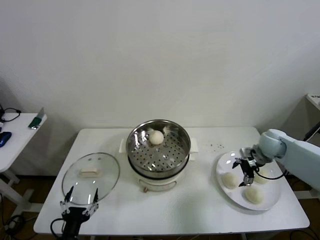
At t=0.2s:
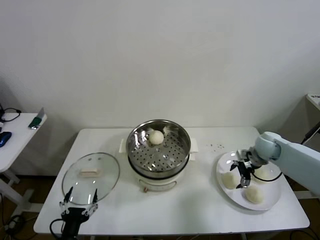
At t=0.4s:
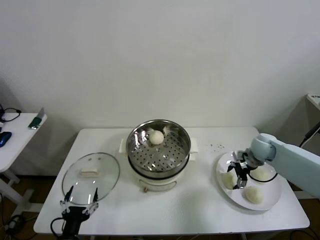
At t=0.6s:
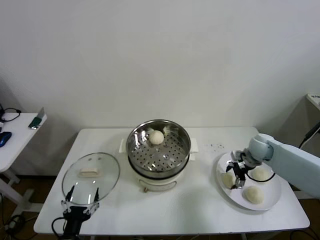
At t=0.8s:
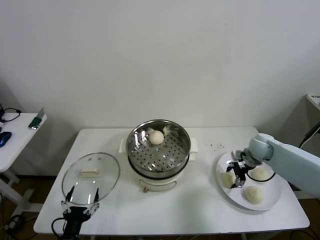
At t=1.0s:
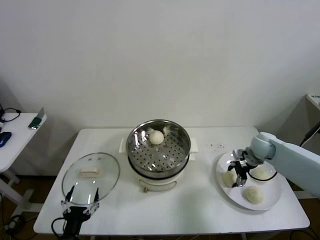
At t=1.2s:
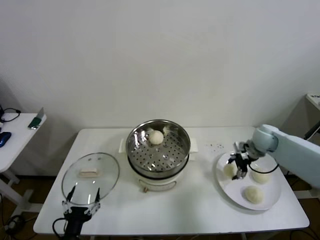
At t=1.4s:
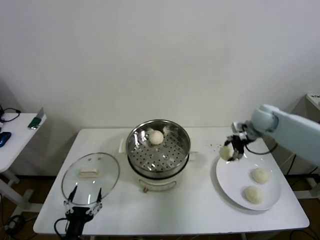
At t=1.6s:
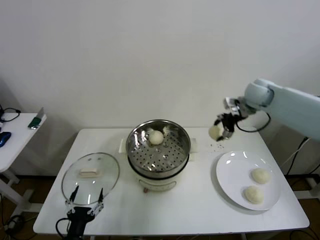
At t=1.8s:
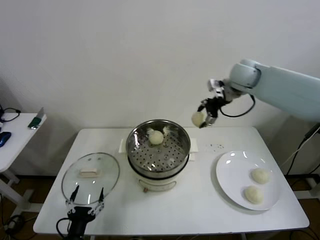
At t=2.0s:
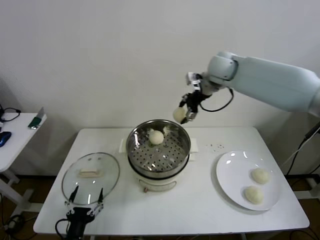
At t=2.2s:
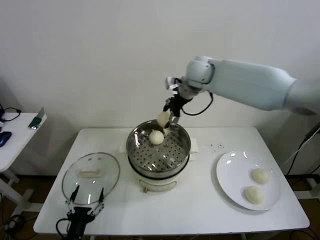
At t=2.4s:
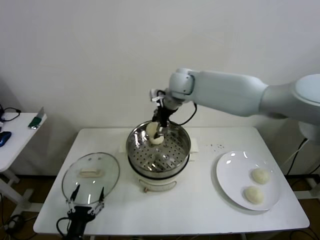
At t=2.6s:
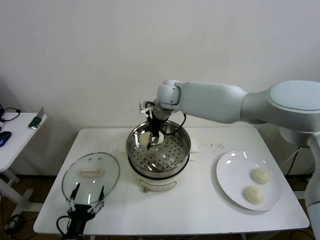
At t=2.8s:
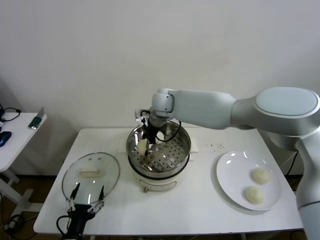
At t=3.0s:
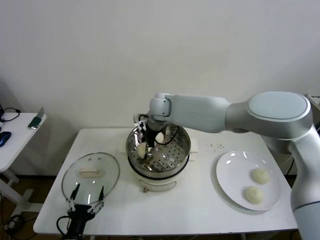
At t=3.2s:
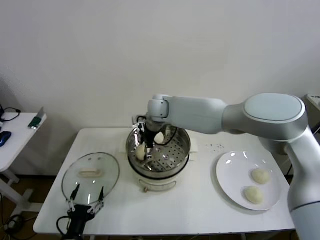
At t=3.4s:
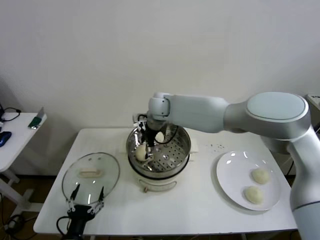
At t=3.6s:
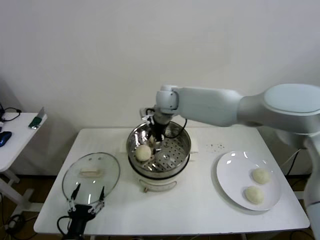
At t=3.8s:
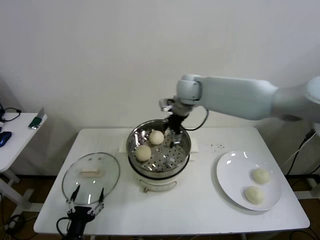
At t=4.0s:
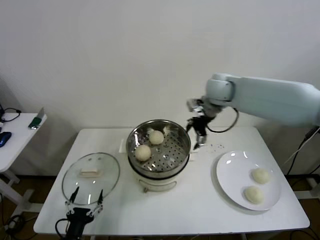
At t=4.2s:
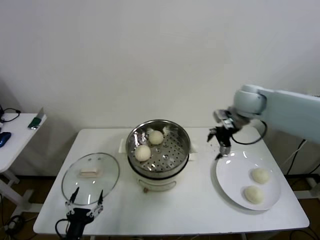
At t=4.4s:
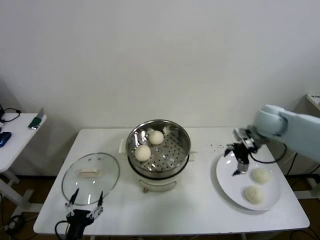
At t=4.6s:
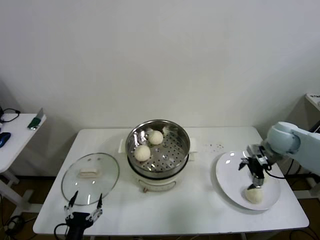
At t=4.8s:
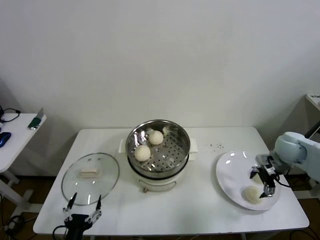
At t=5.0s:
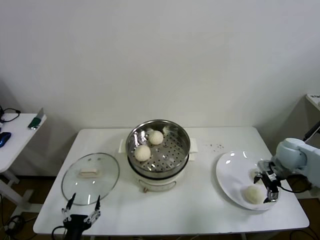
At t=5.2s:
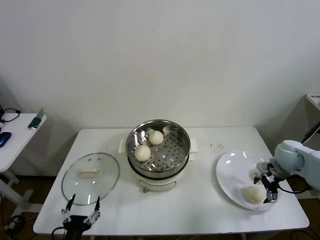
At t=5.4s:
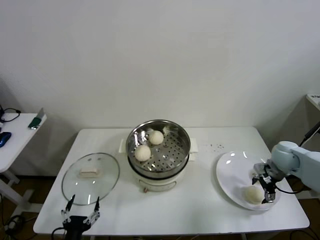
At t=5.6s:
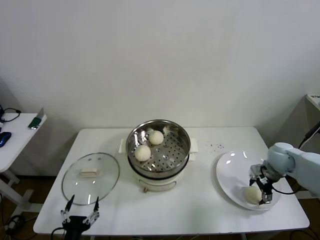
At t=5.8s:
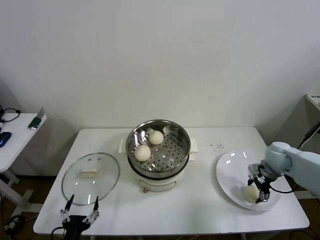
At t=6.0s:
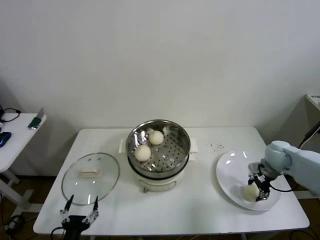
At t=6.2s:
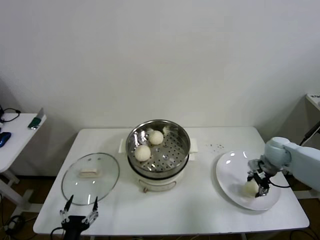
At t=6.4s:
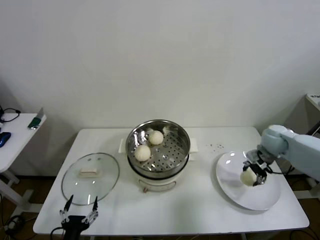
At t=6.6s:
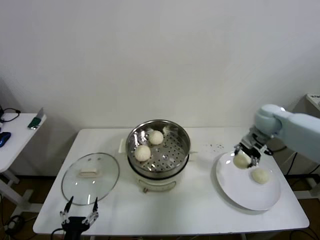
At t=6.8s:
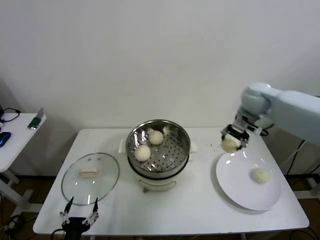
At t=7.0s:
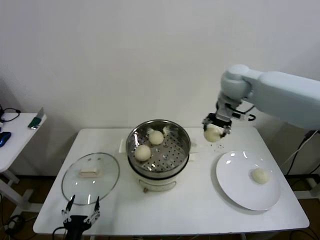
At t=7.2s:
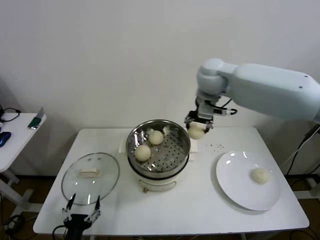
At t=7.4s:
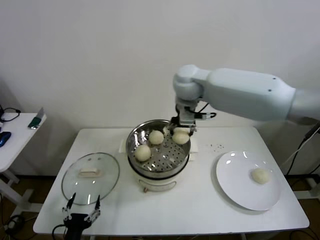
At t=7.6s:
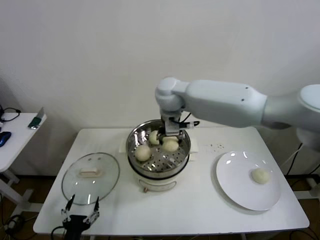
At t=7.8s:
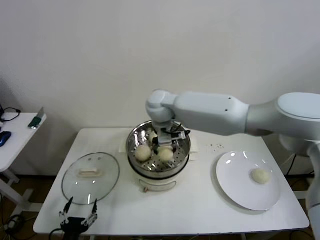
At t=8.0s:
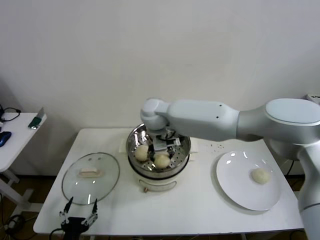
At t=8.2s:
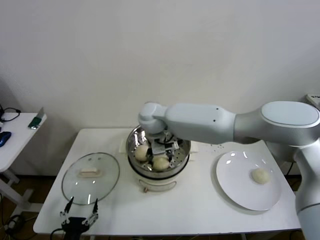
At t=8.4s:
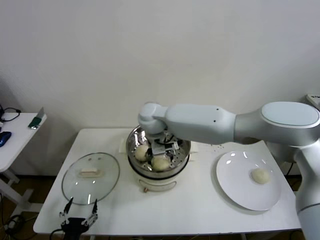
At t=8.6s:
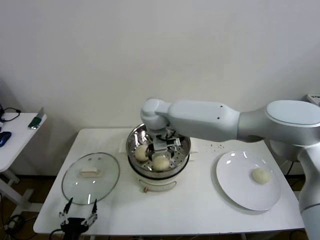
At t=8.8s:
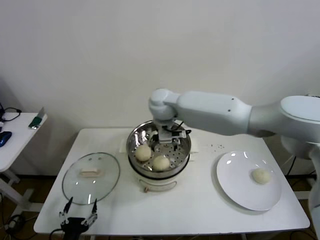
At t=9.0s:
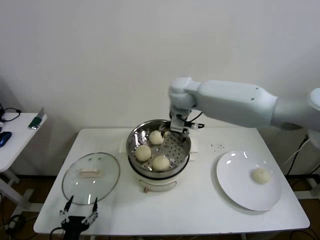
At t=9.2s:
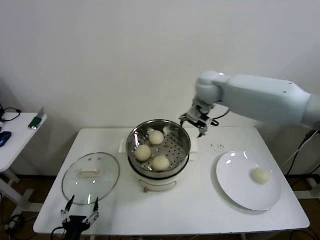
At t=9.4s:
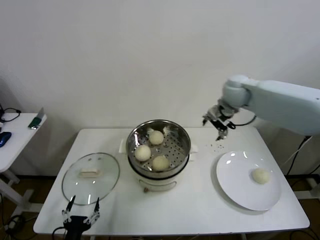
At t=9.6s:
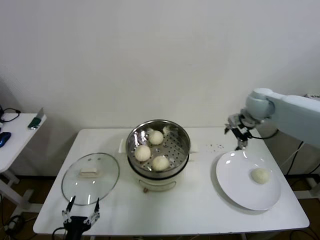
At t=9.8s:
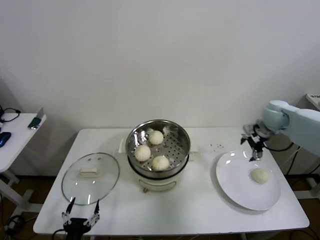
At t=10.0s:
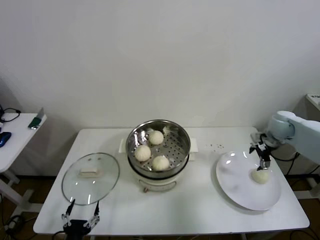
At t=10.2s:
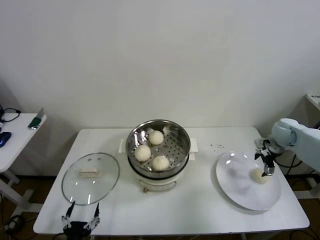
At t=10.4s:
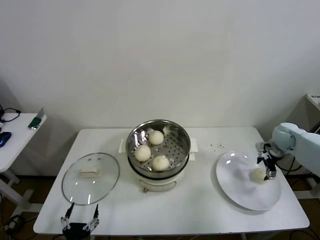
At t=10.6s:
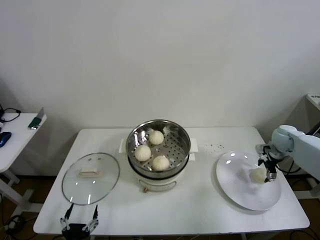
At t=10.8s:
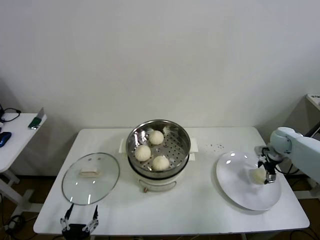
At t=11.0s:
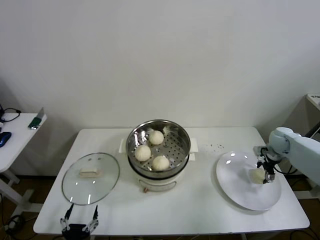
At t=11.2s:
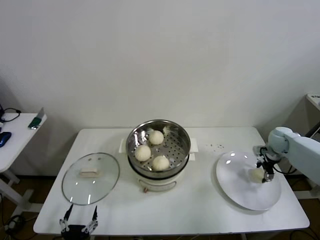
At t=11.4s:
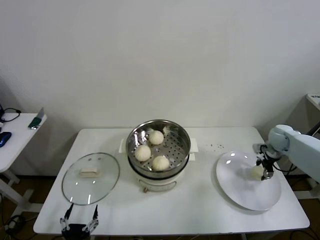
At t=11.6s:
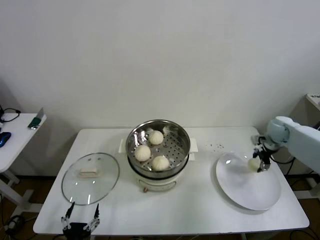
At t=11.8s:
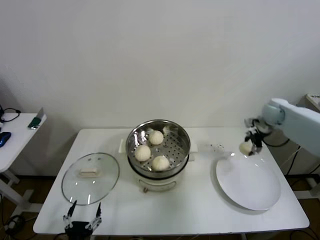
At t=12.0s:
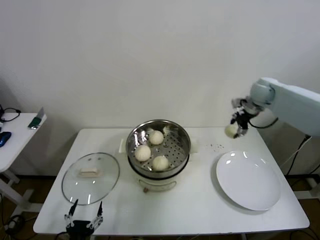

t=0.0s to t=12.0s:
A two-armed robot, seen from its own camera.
Step, t=1.0s to t=3.4s: Place the baozi on the steamer with right gripper.
Step, t=3.8s to t=6.0s: Grasp the baozi in the plate with right gripper.
Step, t=6.2s to t=8.6s: Place the baozi on the steamer with right gripper.
Step, t=9.0s to t=11.4s: Grasp the baozi in the plate with right gripper.
t=0.0s to t=1.6s: The right gripper travels upward, forward and to the left by roughly 25 cm, and closes.
t=1.6s to t=3.0s: The right gripper heads to the left, covering some 30 cm.
t=3.0s to t=4.4s: The right gripper travels to the right by some 35 cm, and opens.
t=4.4s to t=6.0s: The right gripper heads downward and to the right, covering roughly 15 cm, and closes.
t=6.0s to t=7.6s: The right gripper travels to the left and upward by some 50 cm.
t=7.6s to t=9.0s: The right gripper shifts approximately 5 cm to the right, and opens its fingers.
t=9.0s to t=10.4s: The right gripper goes roughly 40 cm to the right and downward.
t=10.4s to t=12.0s: The right gripper heads upward, to the left and forward, covering about 20 cm, and closes up.

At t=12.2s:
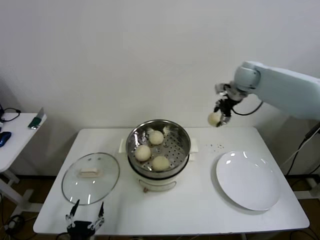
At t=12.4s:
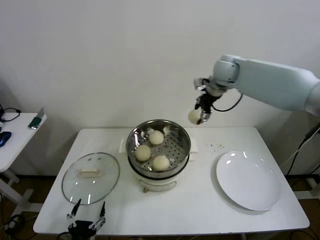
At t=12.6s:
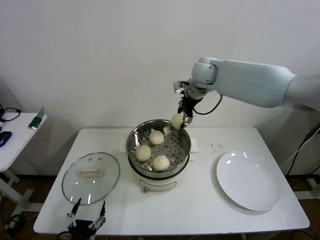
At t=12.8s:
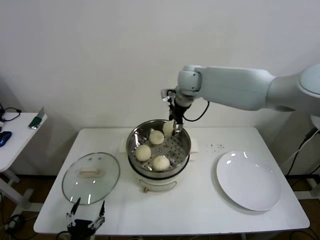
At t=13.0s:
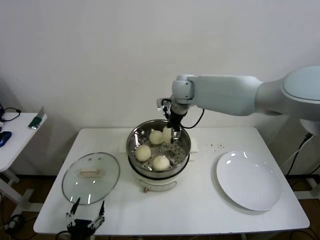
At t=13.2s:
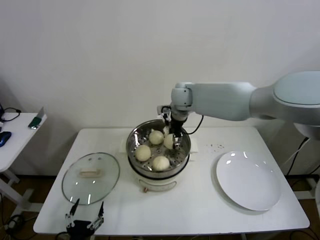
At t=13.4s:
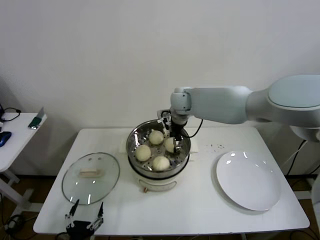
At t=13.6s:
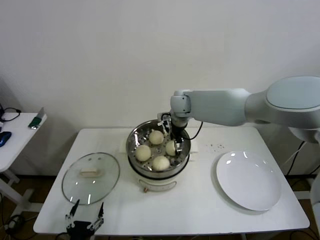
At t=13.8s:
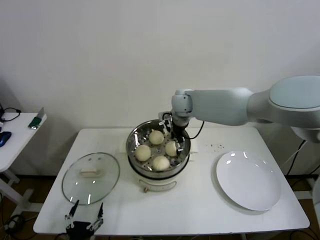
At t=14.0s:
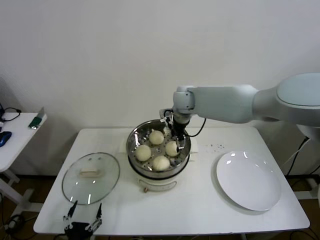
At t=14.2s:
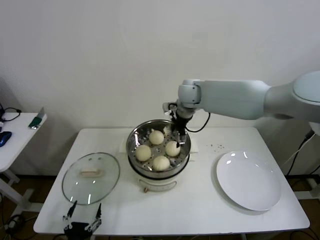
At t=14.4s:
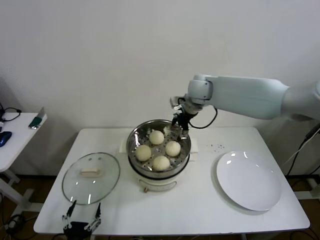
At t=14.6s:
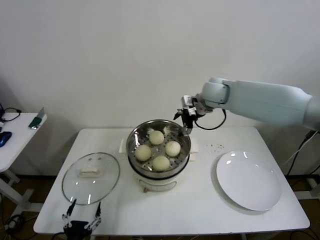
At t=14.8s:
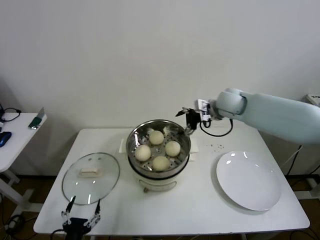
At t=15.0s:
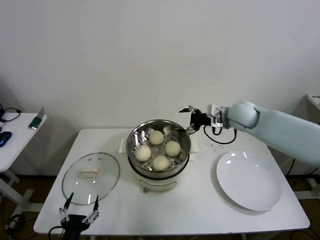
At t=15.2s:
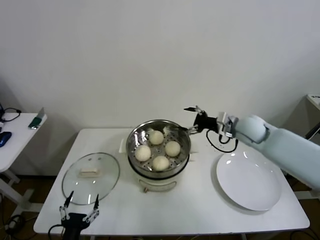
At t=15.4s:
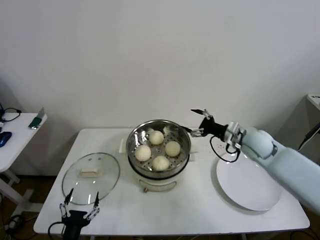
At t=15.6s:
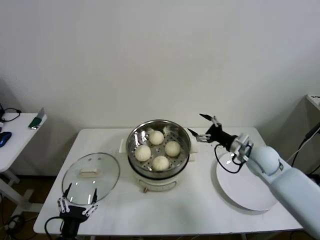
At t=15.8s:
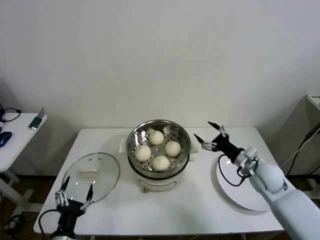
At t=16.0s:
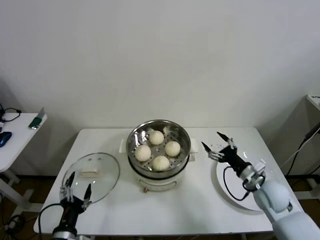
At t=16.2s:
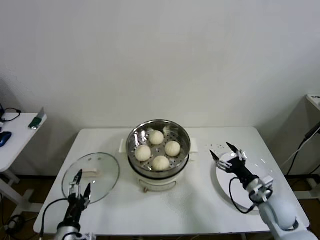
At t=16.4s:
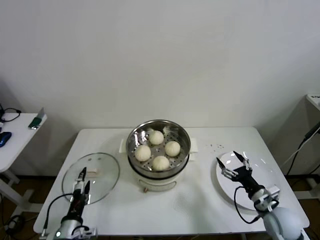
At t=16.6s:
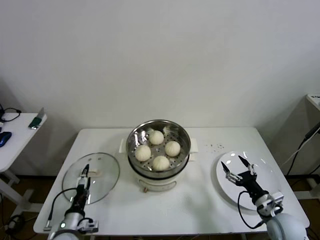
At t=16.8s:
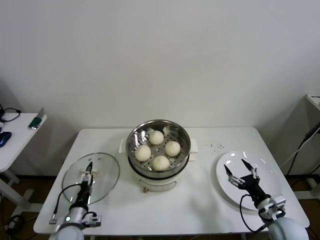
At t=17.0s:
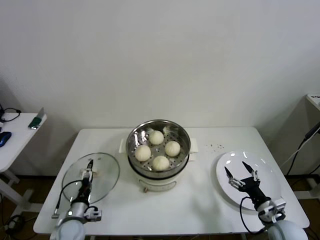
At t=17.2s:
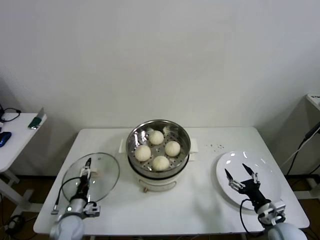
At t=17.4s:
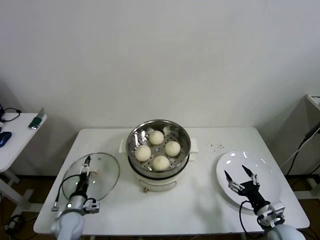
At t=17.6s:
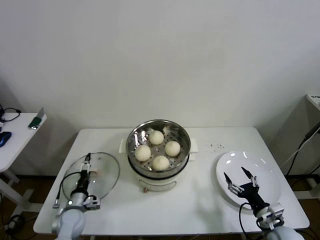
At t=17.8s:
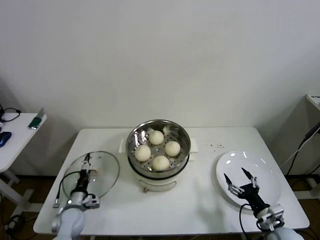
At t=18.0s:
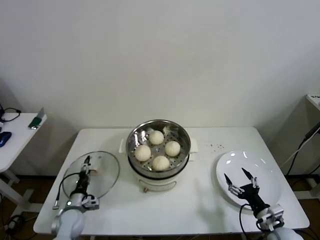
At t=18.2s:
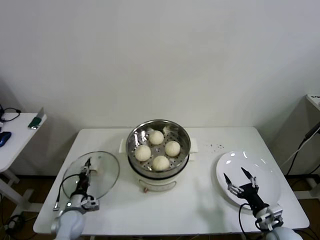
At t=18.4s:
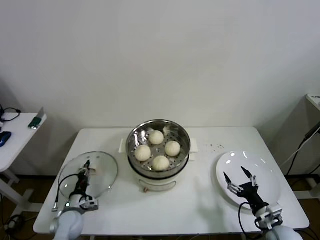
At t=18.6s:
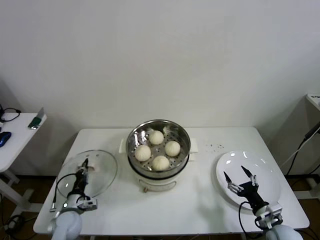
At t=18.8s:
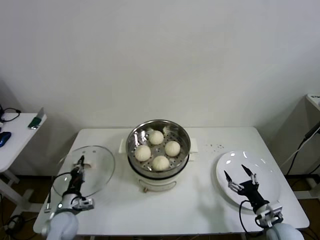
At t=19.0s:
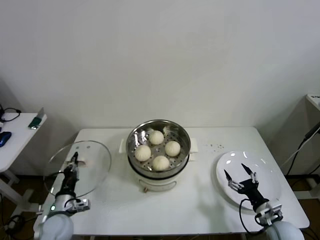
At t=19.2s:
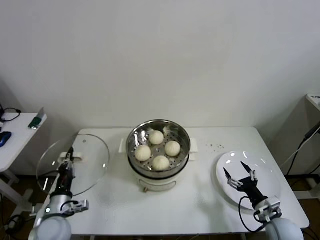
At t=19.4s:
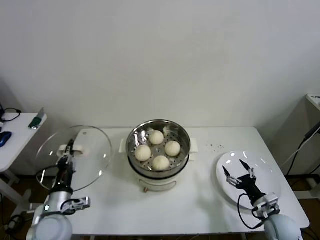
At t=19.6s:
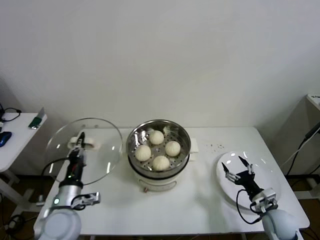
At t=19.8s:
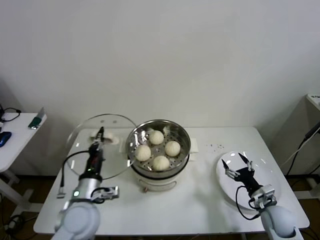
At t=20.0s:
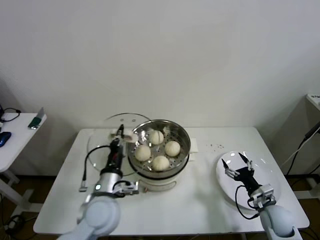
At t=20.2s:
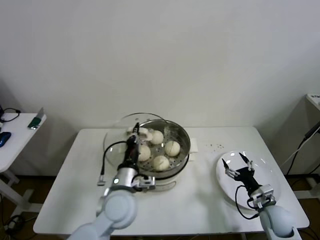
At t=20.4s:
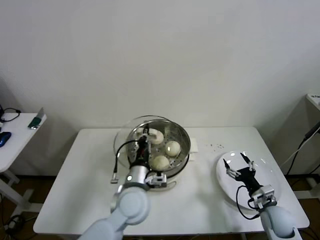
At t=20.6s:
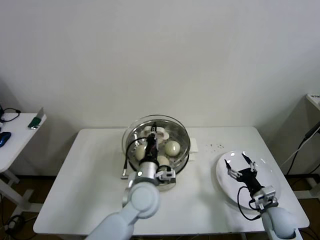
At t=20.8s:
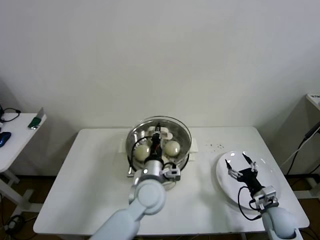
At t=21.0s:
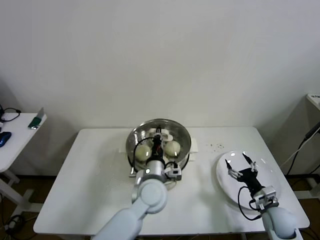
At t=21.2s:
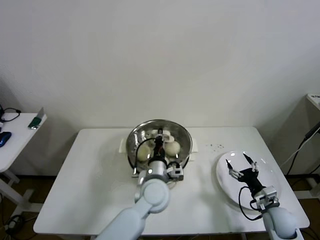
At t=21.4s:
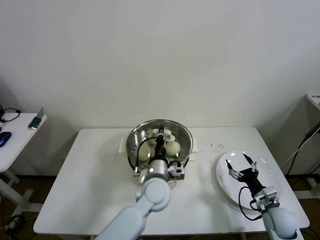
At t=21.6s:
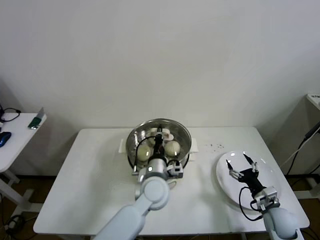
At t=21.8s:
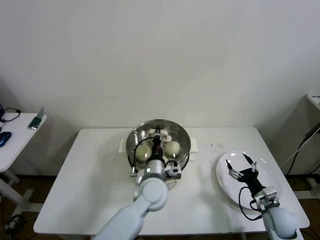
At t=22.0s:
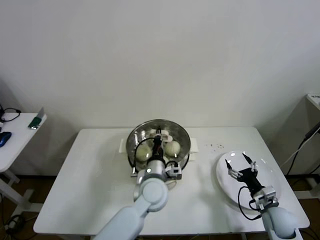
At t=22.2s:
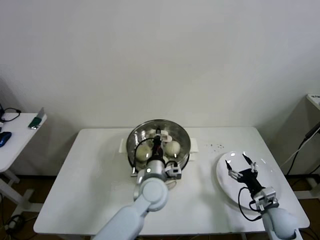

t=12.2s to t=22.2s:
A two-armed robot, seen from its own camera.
Step, t=12.2s to t=14.2s: Place the baozi on the steamer with right gripper.
Step, t=14.4s to t=18.4s: Grasp the pot lid with left gripper.
t=12.2s to t=13.6s: The right gripper travels to the left and downward by approximately 25 cm, and opens.
t=13.6s to t=15.0s: The right gripper heads to the right, covering some 20 cm.
t=15.0s to t=16.4s: The left gripper shifts some 10 cm forward. The right gripper shifts roughly 35 cm backward and downward.
t=16.4s to t=18.0s: The right gripper is displaced backward by roughly 5 cm, while the left gripper travels forward and downward by roughly 15 cm.
t=18.0s to t=19.4s: The left gripper goes some 15 cm upward and backward, and closes.
t=19.4s to t=20.8s: The left gripper is displaced to the right by about 25 cm.
t=20.8s to t=22.2s: There are only small adjustments of the grippers.
